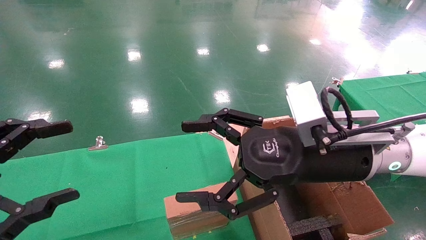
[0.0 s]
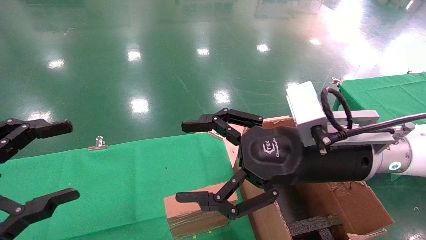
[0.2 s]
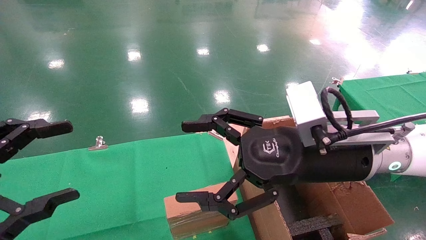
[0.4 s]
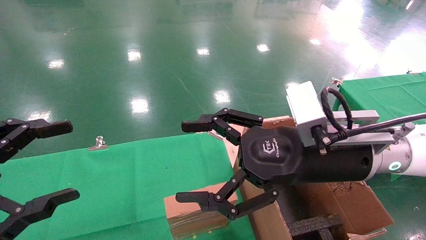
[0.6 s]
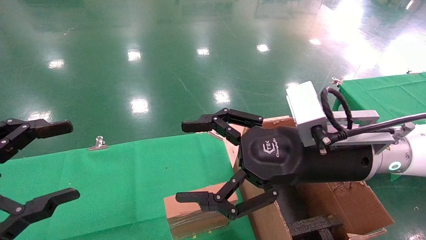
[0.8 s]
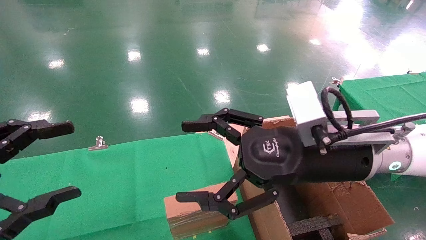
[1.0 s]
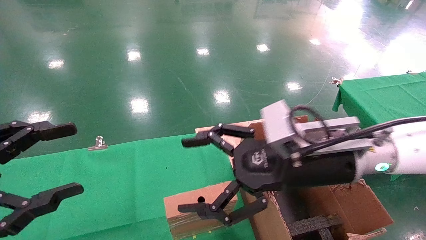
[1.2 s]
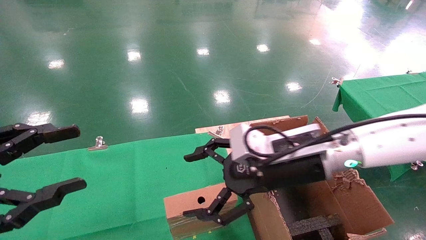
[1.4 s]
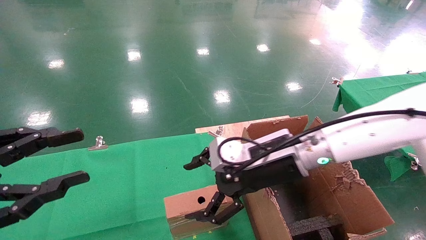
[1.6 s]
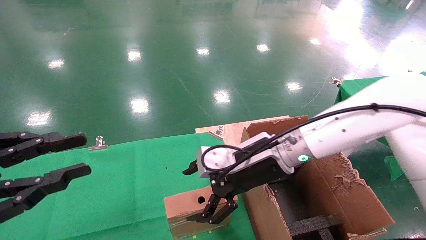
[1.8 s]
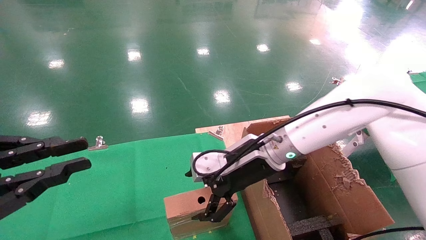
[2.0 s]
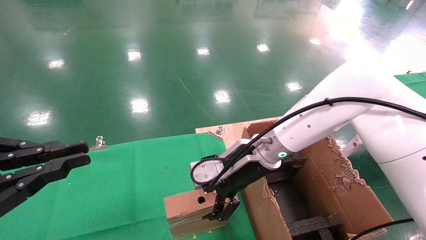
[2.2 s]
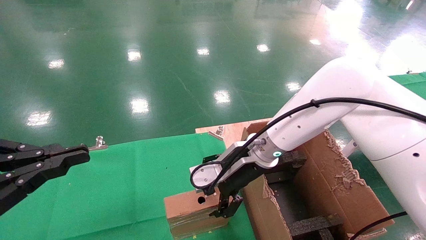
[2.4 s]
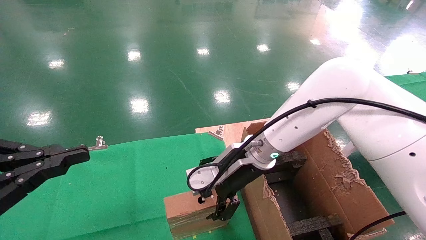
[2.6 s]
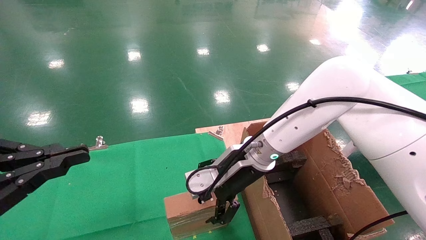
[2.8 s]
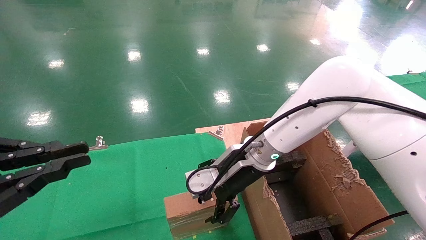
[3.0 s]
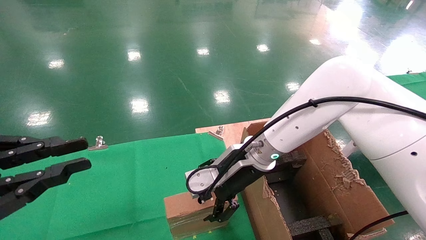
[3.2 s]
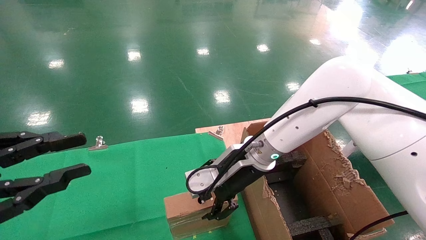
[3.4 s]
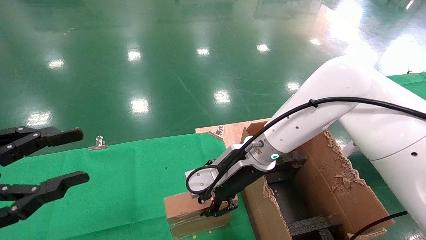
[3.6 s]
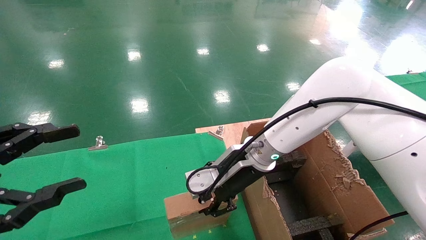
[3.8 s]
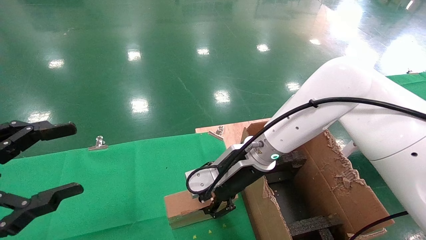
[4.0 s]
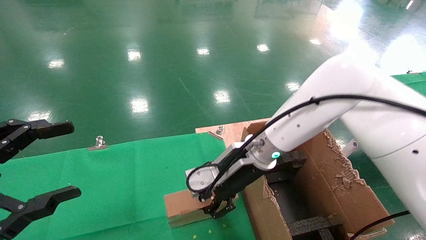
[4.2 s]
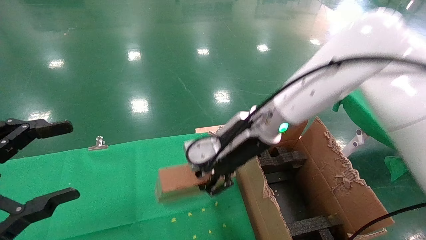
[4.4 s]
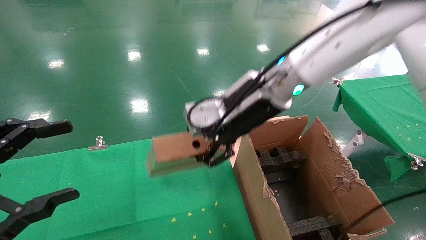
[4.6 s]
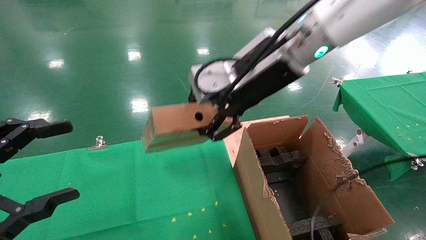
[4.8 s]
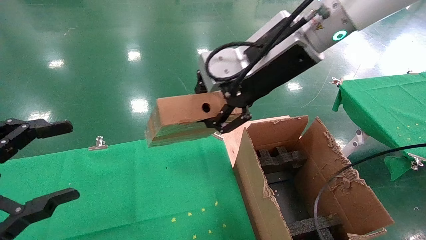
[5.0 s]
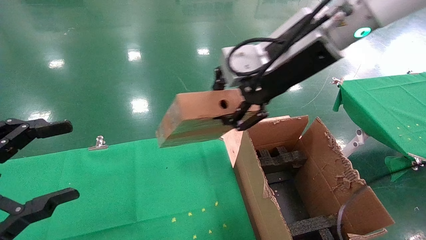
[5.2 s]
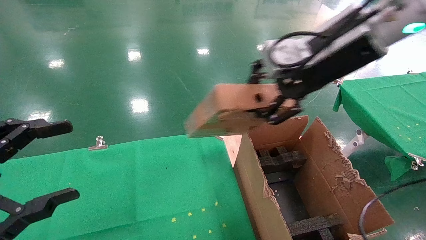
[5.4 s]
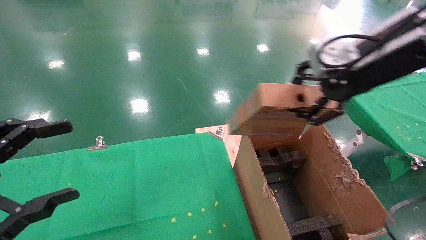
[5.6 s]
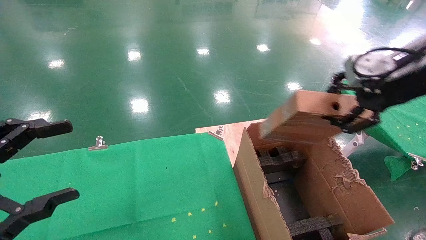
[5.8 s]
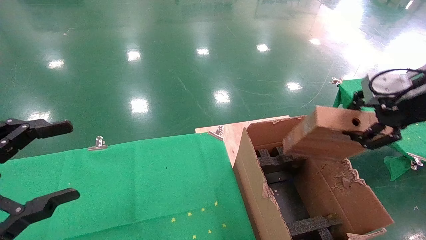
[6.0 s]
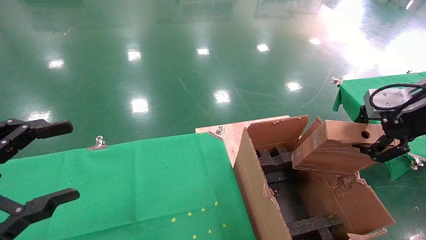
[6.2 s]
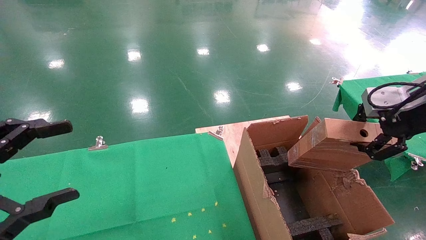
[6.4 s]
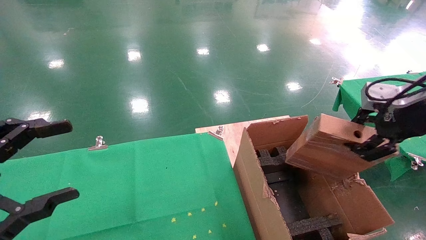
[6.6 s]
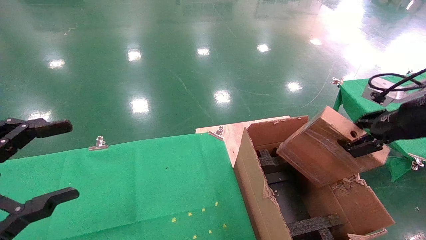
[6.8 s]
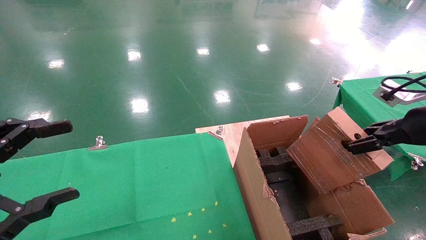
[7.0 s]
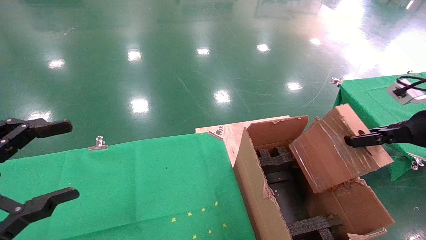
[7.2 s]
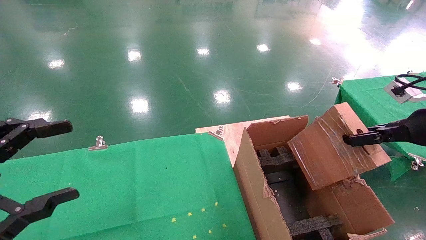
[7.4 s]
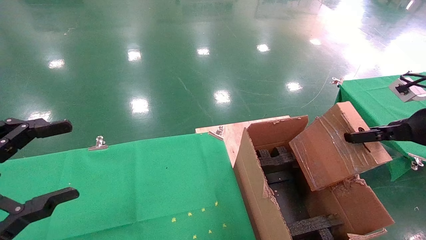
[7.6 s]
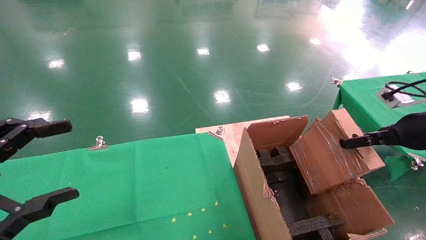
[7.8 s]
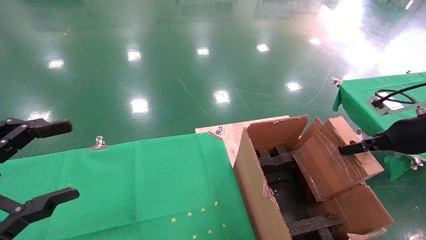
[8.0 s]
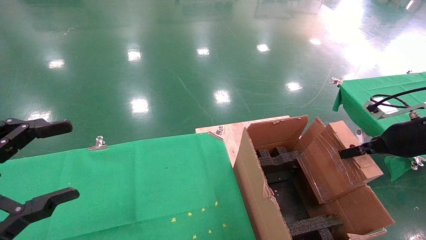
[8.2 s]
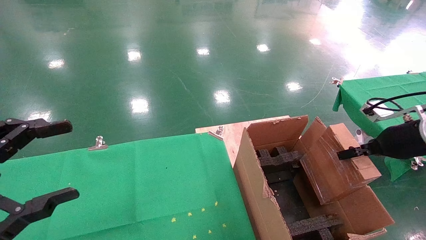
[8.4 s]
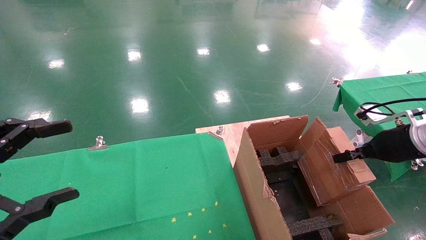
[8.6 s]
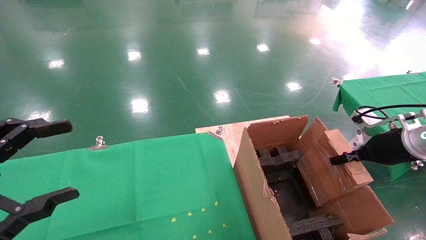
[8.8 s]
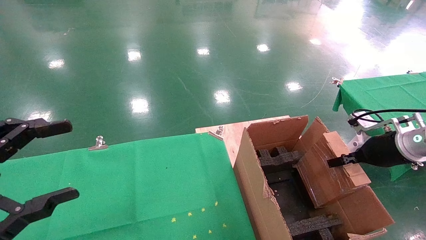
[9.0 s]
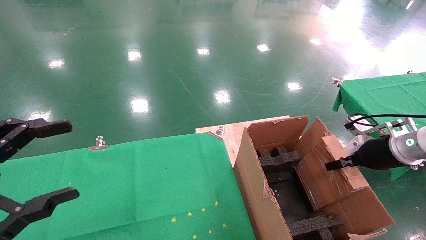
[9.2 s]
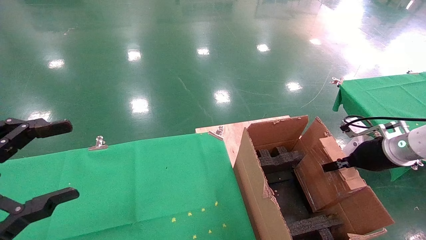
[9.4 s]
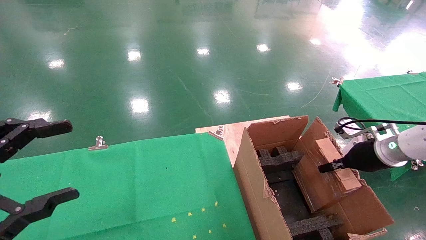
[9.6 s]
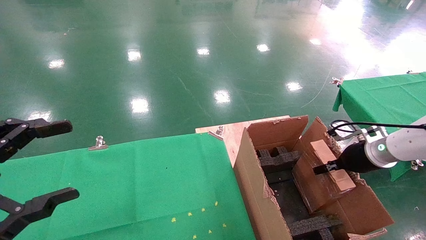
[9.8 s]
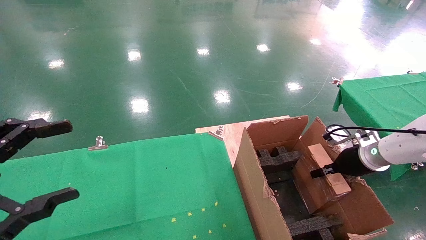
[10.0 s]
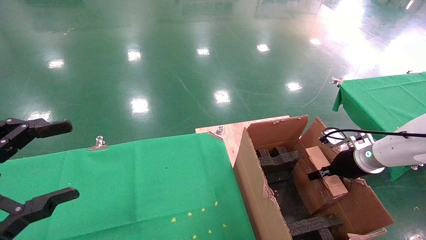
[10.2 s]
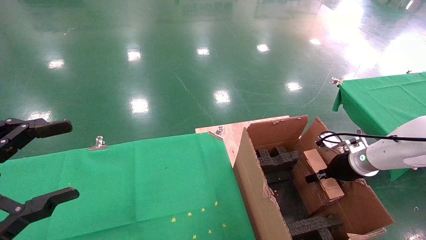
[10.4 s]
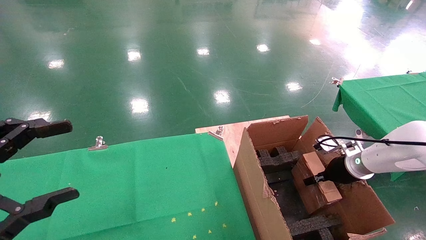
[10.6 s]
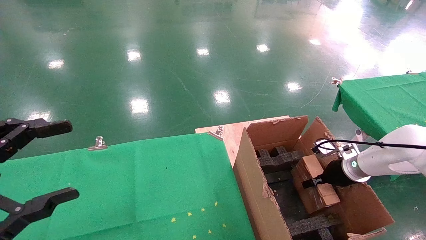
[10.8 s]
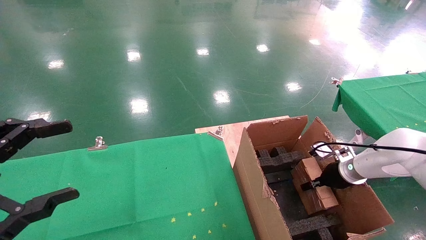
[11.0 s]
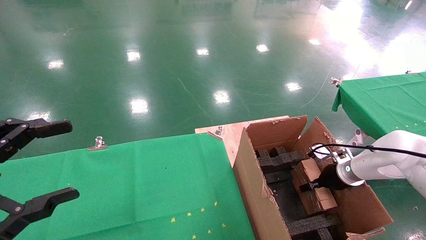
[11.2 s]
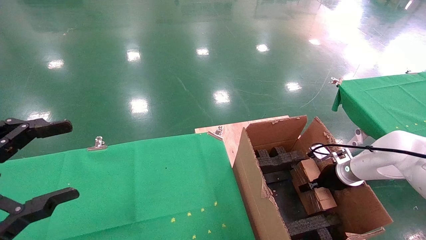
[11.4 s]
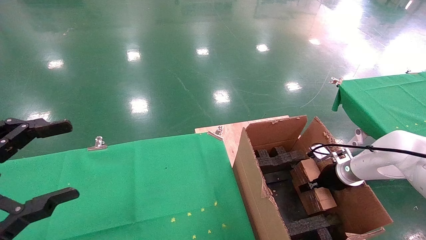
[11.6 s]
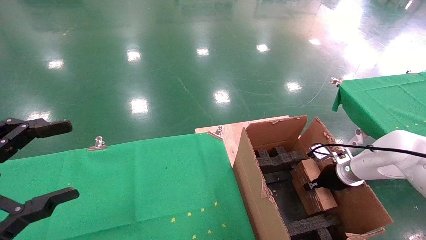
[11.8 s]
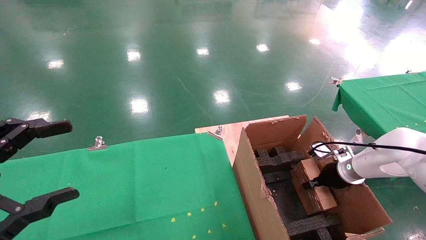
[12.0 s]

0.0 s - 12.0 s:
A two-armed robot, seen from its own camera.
Task of the whole recording: using a robotic arm to pick up a cardboard box and palace it the carton.
Step, 1.4 s - 3.6 s: Pick up the mouse and the power cord paper box.
0.0 s - 1.6 s: The right gripper travels forward by approximately 5 cm. Meanwhile the left gripper closes.
1.6 s - 3.0 s: The right gripper moves about 5 cm; the left gripper closes its fingers.
3.0 s - 4.4 s: The left gripper opens, while the right gripper goes roughly 5 cm upward, and closes.
4.4 s - 6.0 s: The right gripper shifts some 30 cm to the right.
6.0 s - 7.6 s: The right gripper is displaced downward and to the right by about 10 cm.
7.6 s - 9.0 s: The right gripper heads downward and forward, covering roughly 10 cm.
9.0 s - 10.4 s: The right gripper shifts some 10 cm downward and forward.
10.4 s - 12.0 s: There are only small adjustments of the grippers.

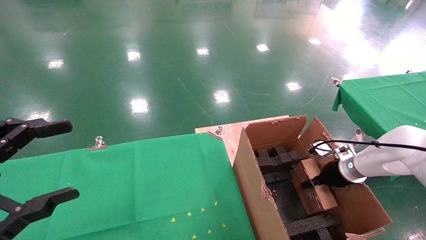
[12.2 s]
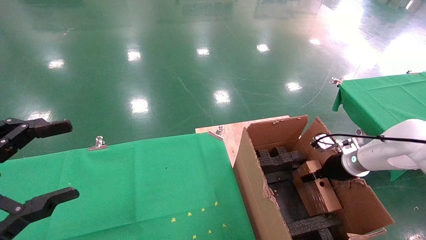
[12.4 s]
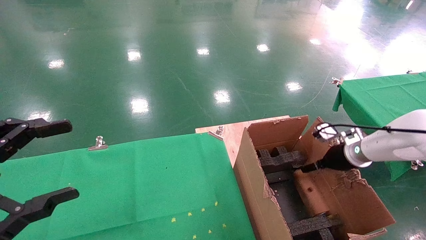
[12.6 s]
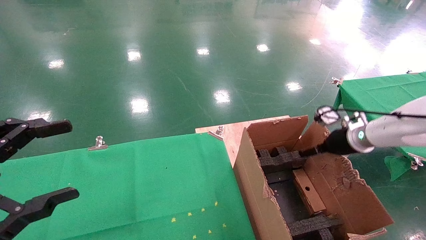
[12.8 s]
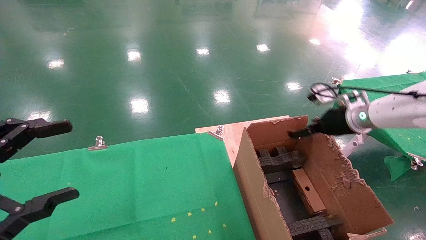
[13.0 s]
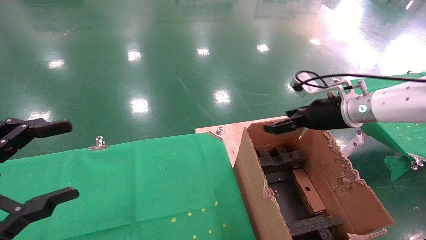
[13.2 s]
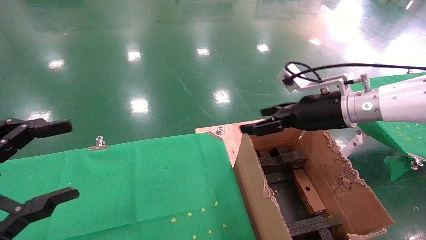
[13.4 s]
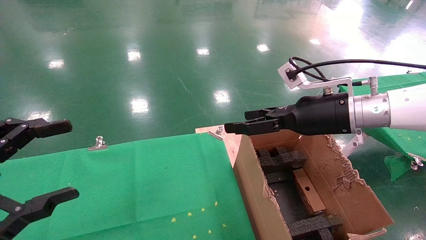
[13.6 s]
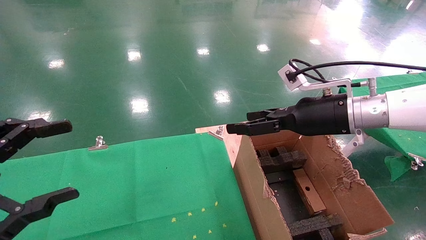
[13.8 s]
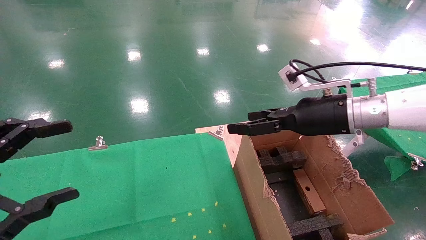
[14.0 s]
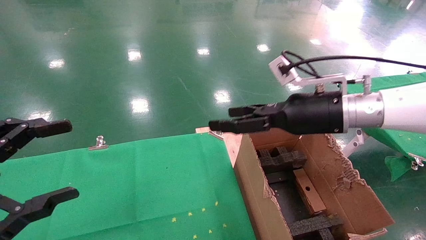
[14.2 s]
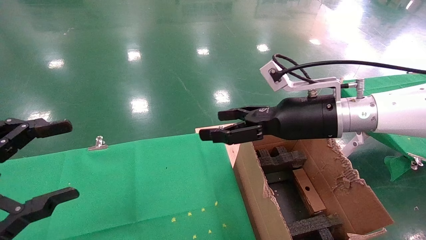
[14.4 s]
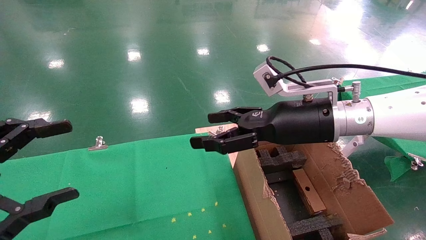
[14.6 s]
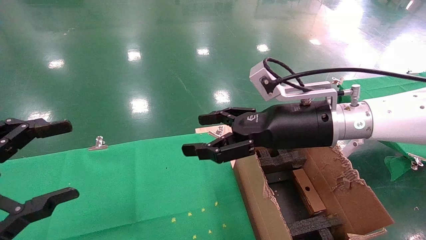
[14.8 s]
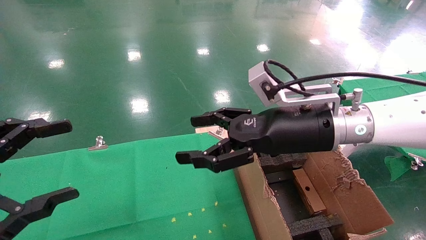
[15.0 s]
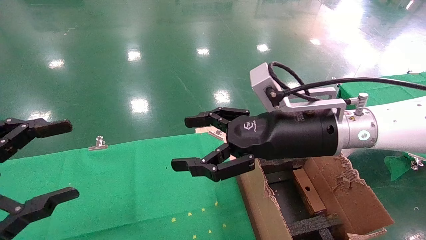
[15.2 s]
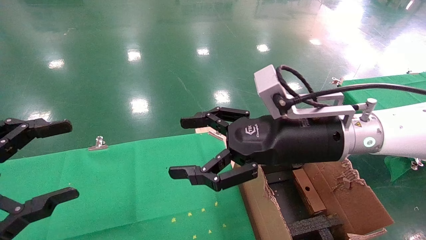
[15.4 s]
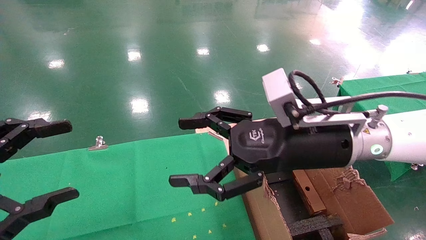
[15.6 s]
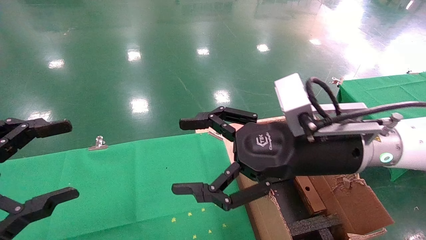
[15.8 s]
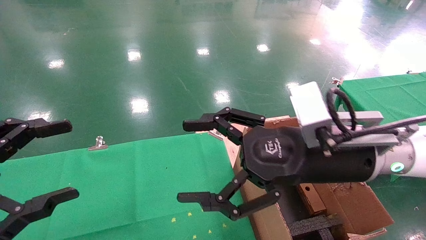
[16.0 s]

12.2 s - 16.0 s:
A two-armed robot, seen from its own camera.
Task of the whole recording: using a robotic arm to pick up a cardboard box and palace it the carton.
12.2 s - 13.4 s: The right gripper is displaced upward and to the left by approximately 20 cm, and opens its fingers.
13.4 s - 14.8 s: The right gripper heads to the left and backward, covering some 10 cm.
14.8 s - 16.0 s: The right gripper goes some 5 cm backward.
